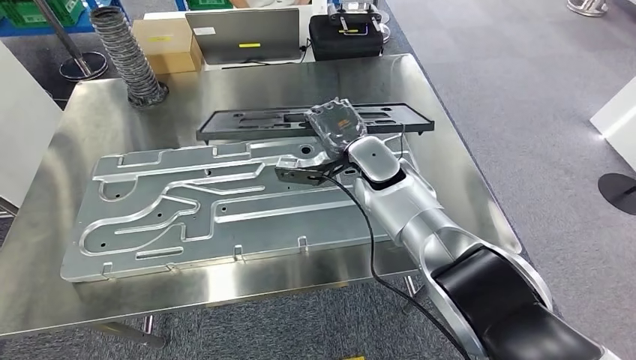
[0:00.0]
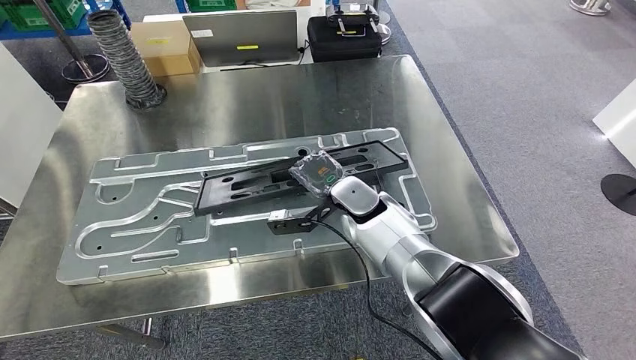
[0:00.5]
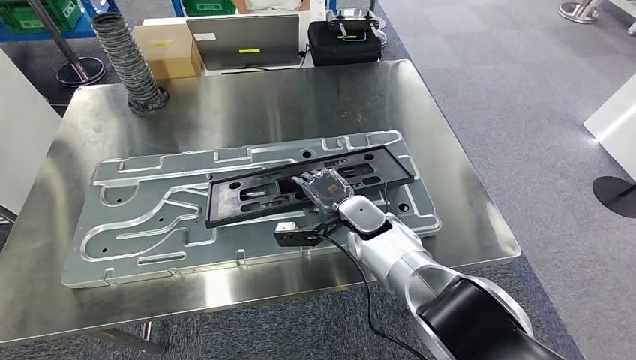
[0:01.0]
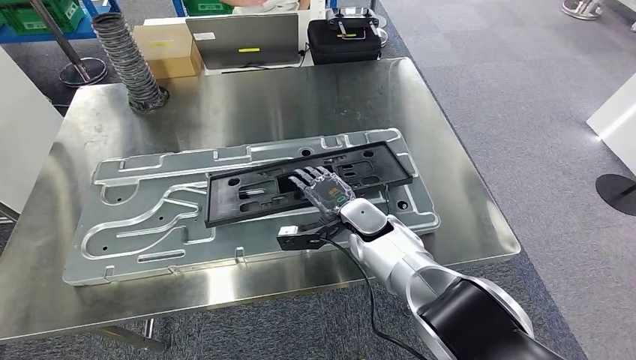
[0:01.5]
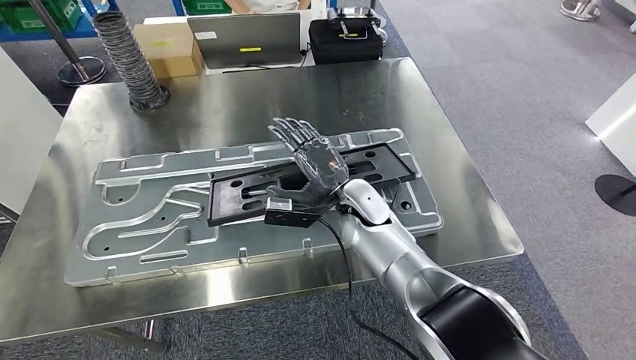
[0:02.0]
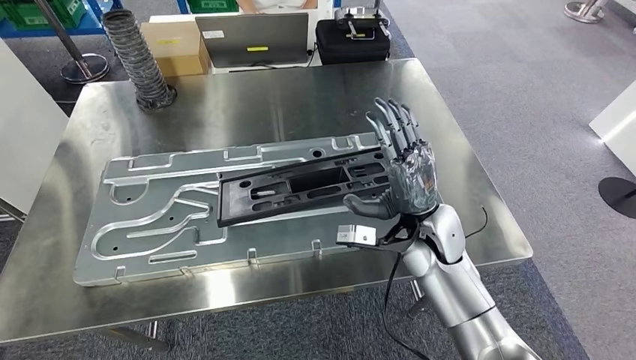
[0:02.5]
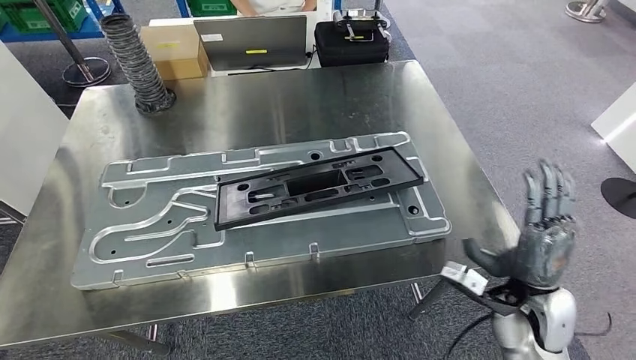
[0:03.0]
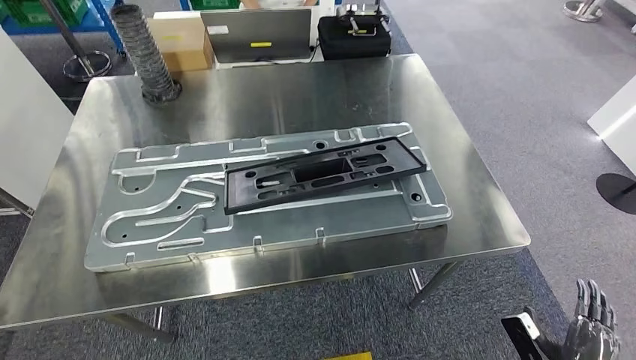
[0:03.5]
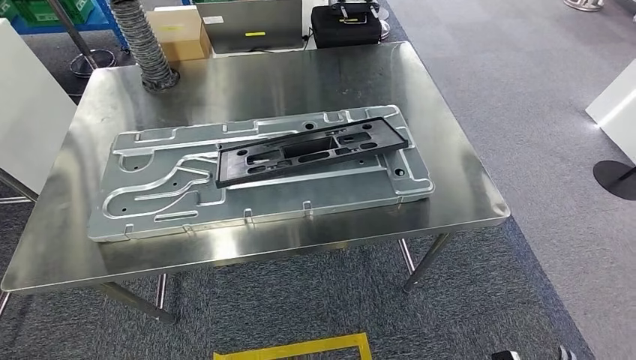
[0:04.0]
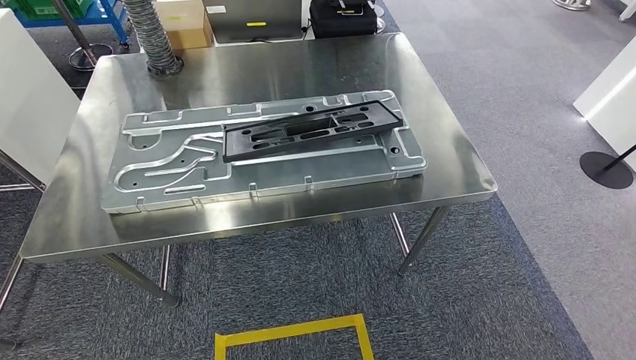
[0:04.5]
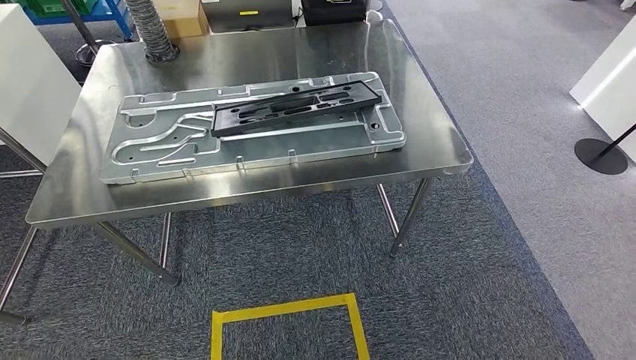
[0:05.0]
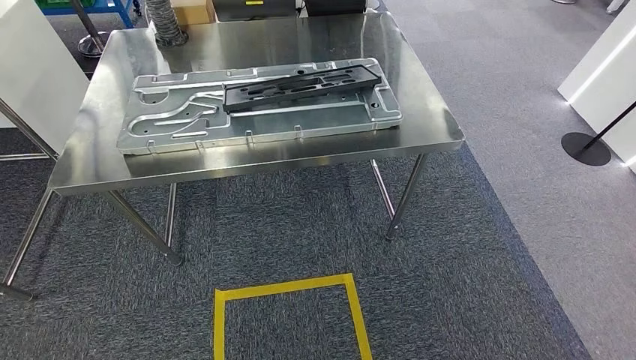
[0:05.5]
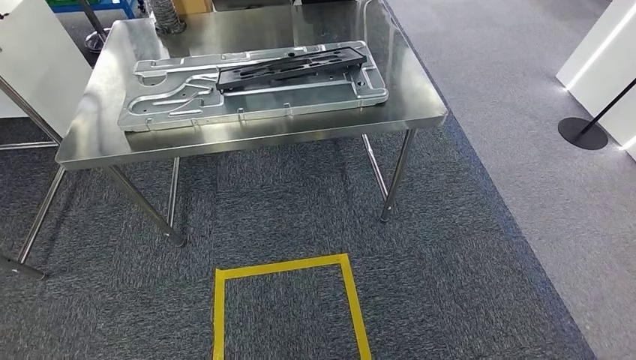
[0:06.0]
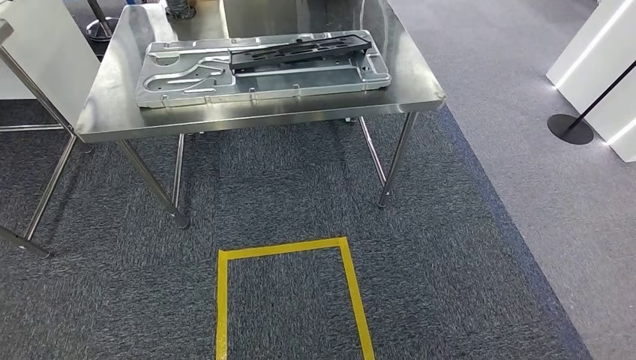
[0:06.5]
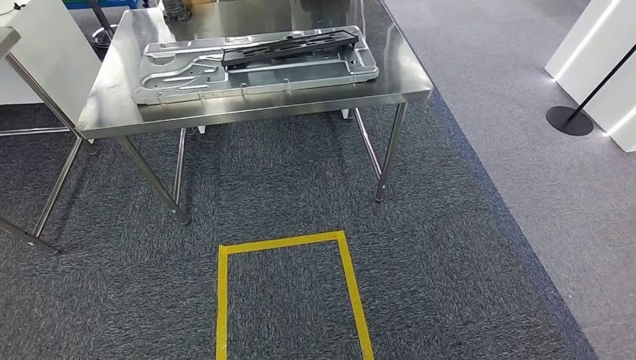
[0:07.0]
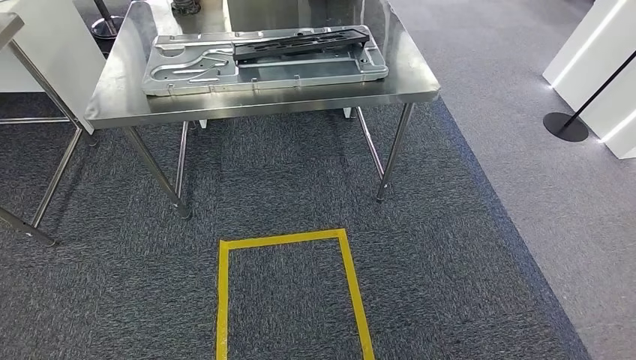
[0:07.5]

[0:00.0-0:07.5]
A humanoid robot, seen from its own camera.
Step, 0:00.0 to 0:02.0: Insert the large material into the corresponding slot on the workbench.
Step, 0:03.5 to 0:07.5: Move to the initial position of the shelf.

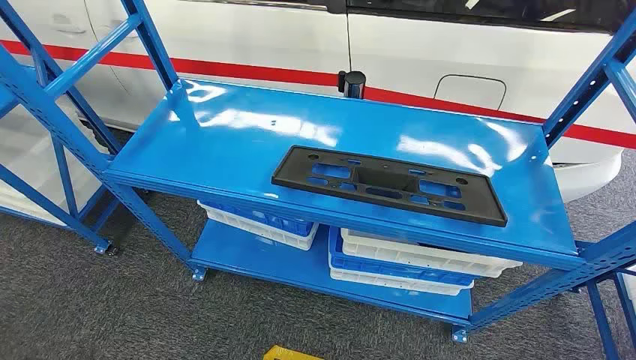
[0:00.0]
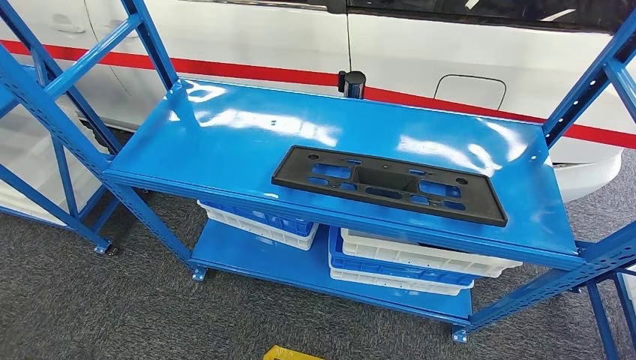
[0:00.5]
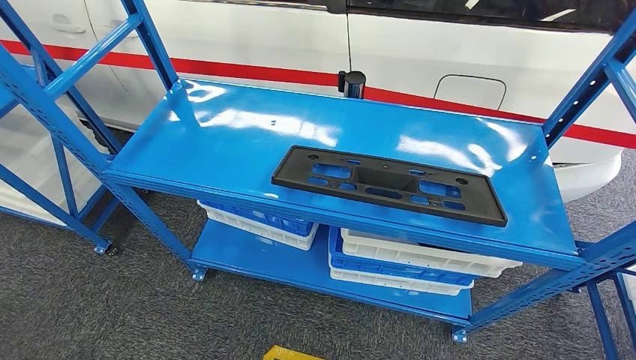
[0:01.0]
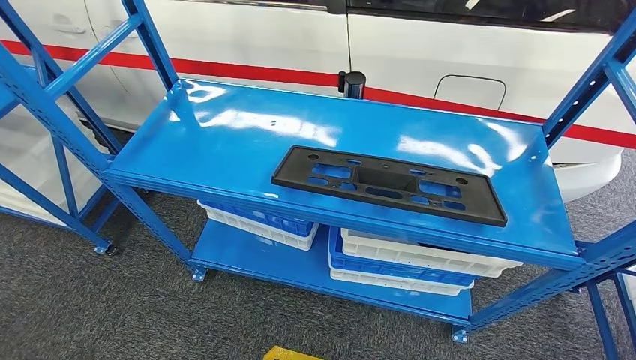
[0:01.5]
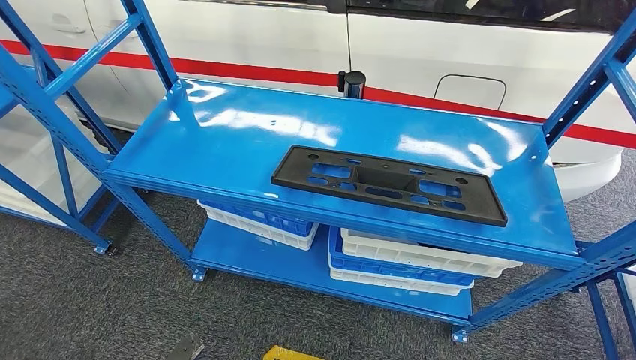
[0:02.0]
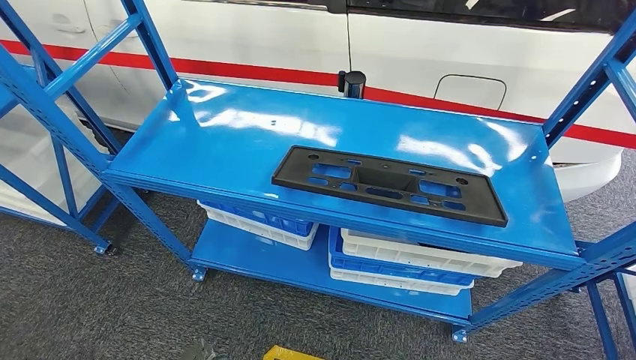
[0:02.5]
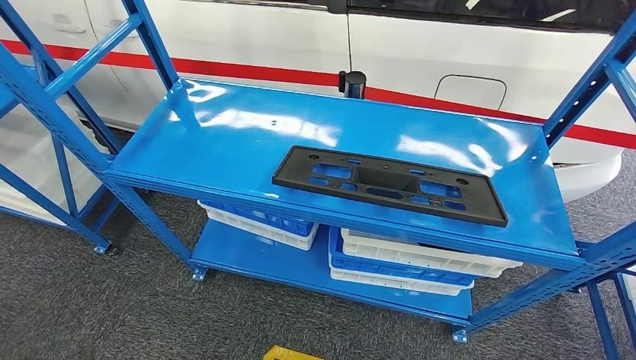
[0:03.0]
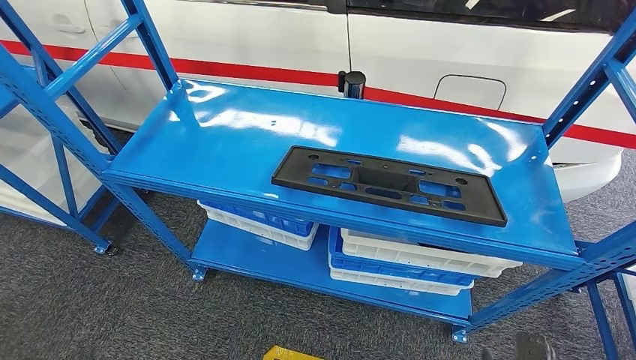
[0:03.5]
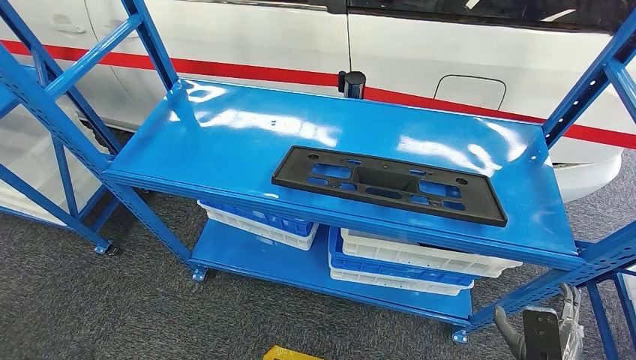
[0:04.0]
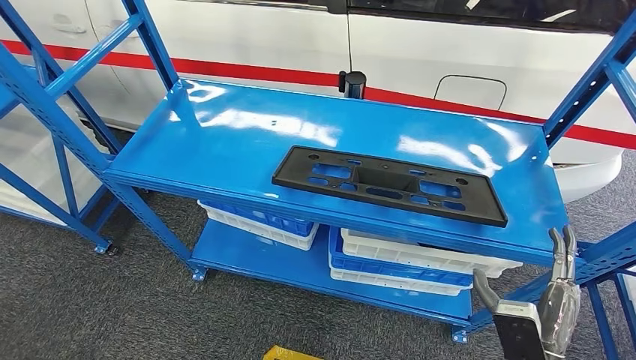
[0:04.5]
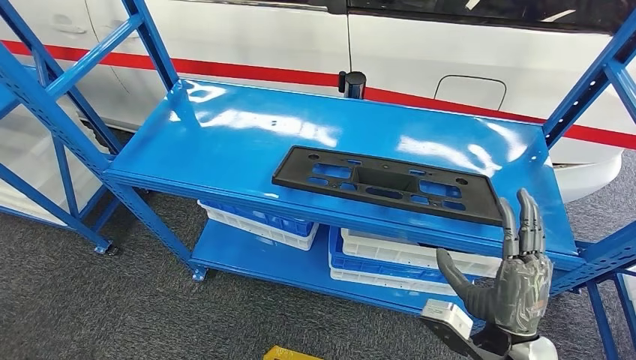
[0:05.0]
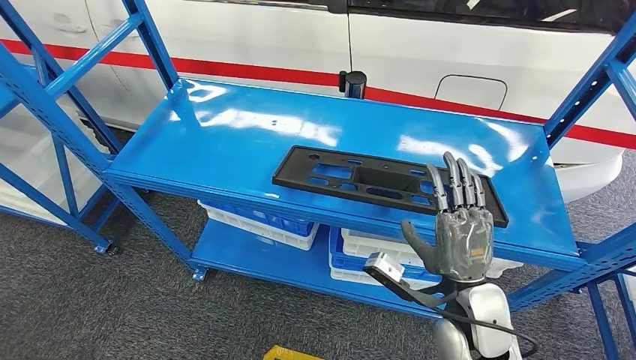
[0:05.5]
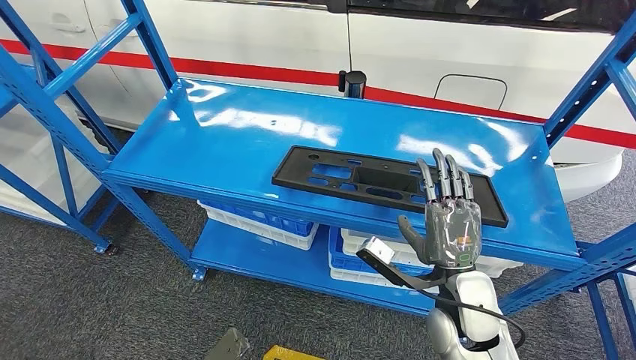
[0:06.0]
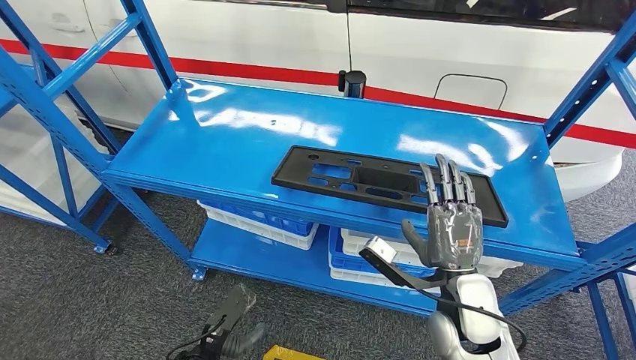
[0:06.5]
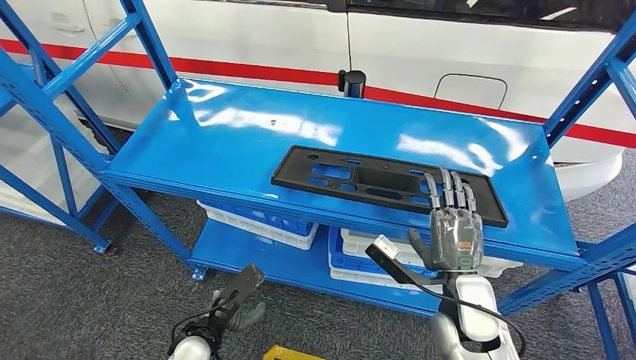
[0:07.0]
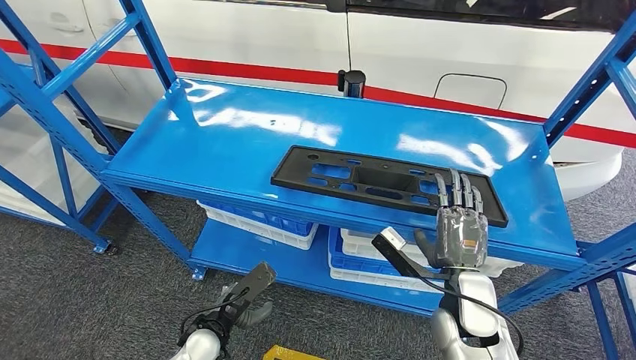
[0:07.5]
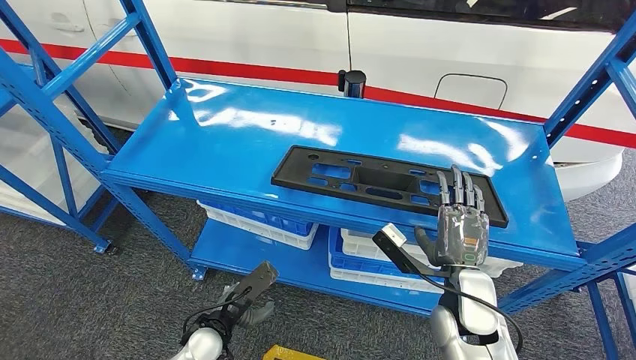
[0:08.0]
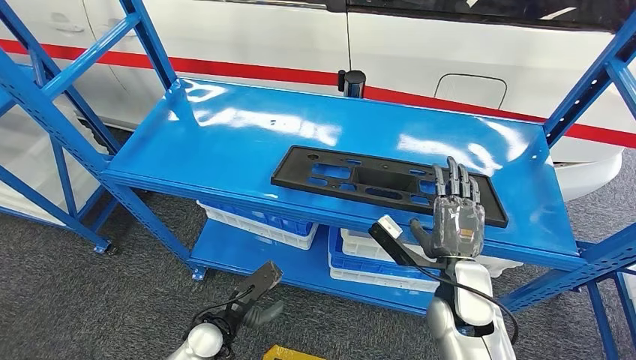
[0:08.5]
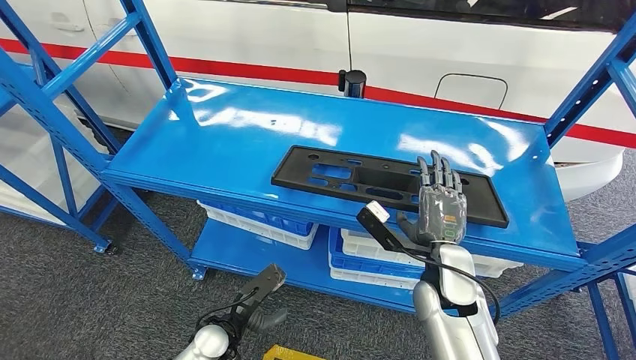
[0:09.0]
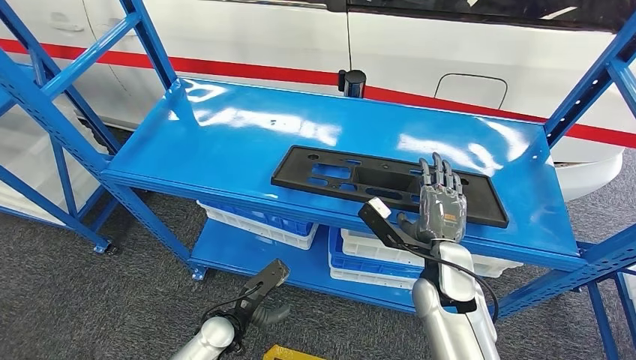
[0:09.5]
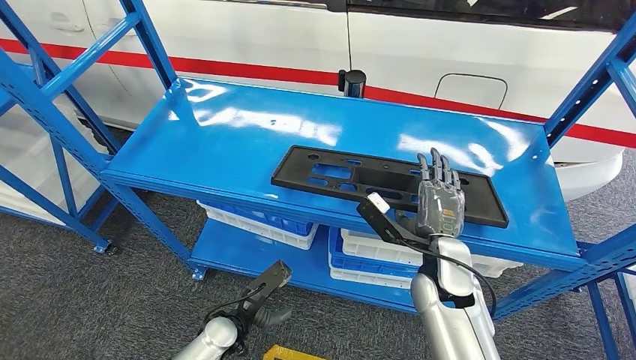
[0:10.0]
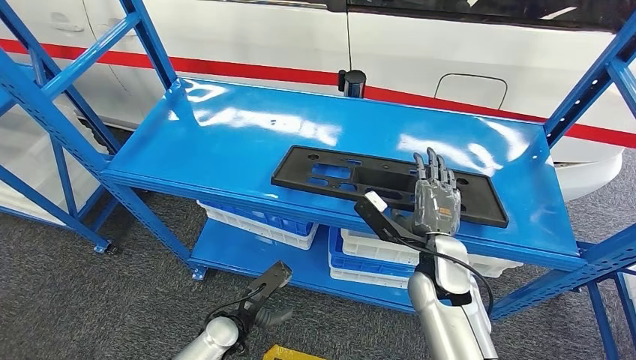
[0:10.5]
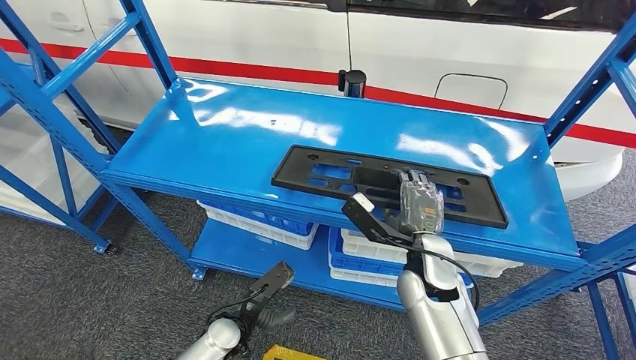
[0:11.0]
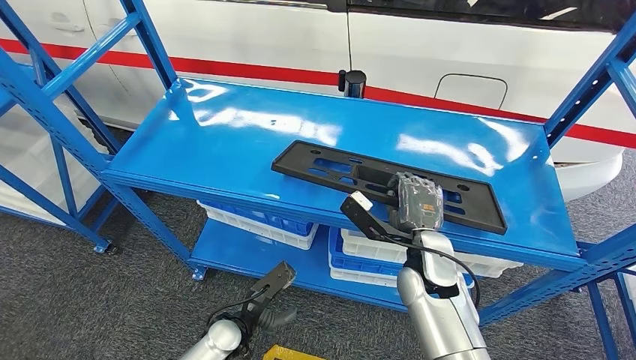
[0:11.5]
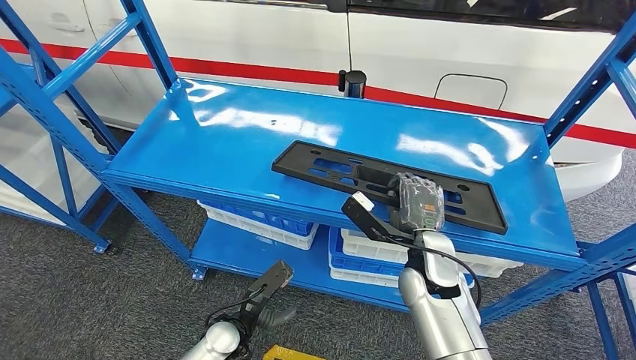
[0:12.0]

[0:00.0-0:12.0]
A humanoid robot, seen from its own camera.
0:02.0 to 0:04.0: The right hand moves upward and forward, about 20 cm.
0:04.0 to 0:06.0: The left hand travels forward by approximately 10 cm; the right hand shifts approximately 20 cm to the left, upward and forward.
0:06.0 to 0:08.0: The left hand travels forward by approximately 15 cm.
0:08.0 to 0:10.0: The right hand ends up roughly 5 cm from where it was.
0:10.0 to 0:12.0: The hands make only small movements.

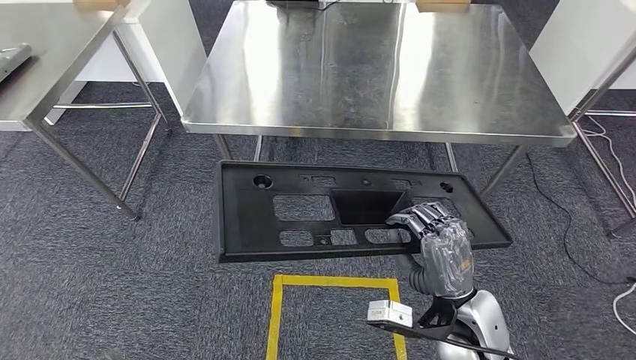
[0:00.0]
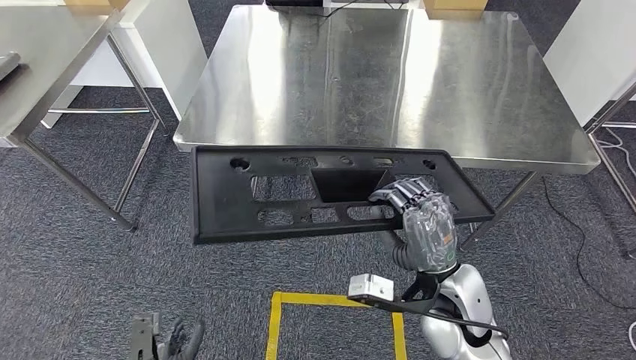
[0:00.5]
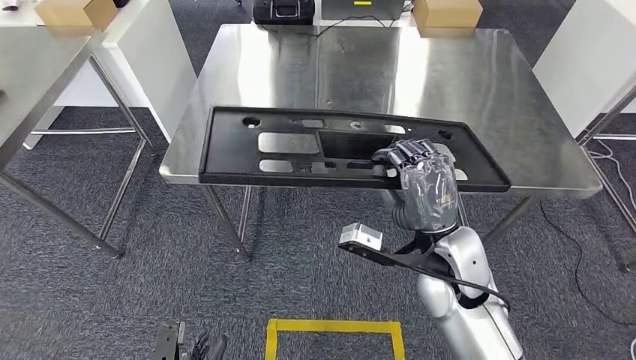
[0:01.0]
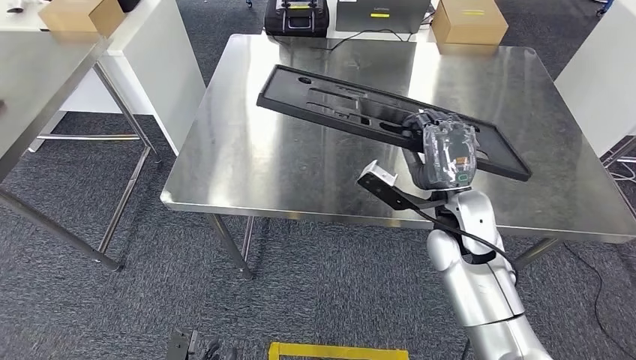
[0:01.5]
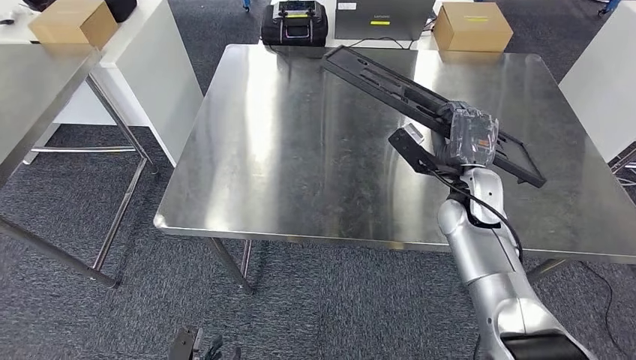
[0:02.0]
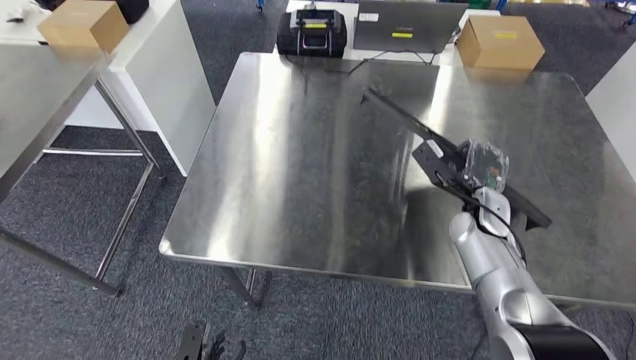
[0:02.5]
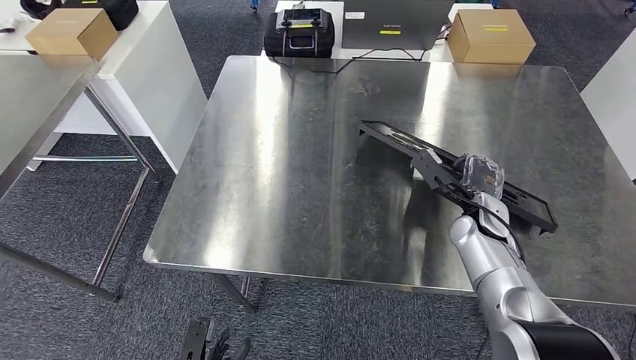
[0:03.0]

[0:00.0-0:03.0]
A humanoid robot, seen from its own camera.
Step, 0:00.0 to 0:02.0: Move the large material to the workbench.
